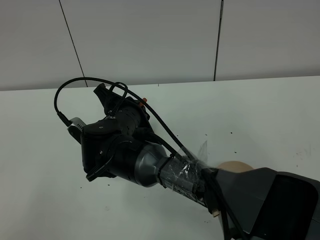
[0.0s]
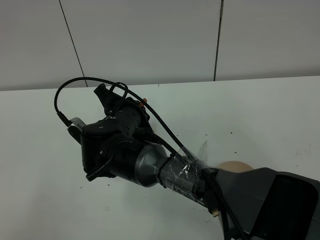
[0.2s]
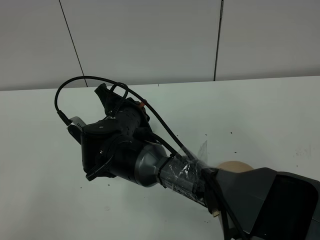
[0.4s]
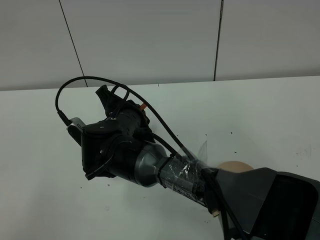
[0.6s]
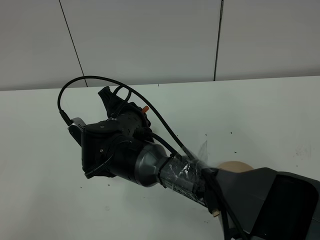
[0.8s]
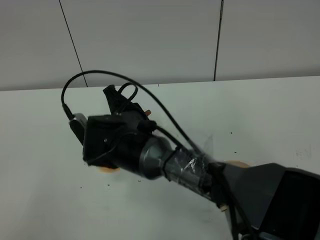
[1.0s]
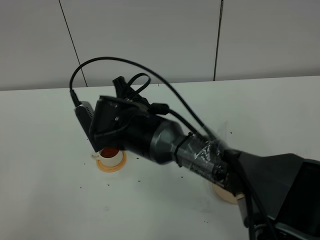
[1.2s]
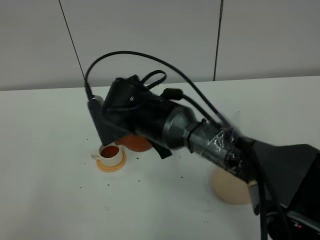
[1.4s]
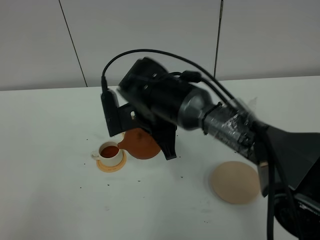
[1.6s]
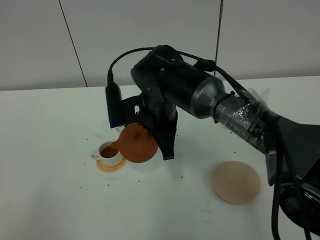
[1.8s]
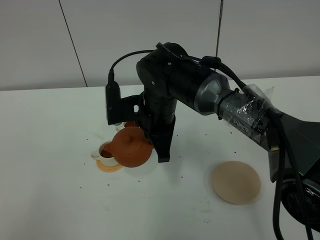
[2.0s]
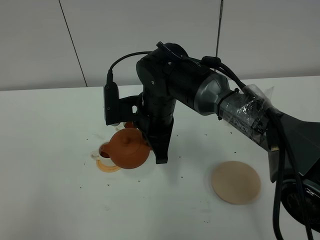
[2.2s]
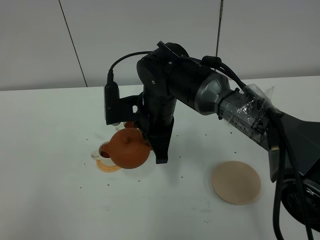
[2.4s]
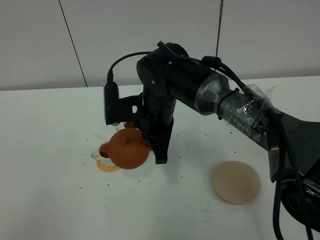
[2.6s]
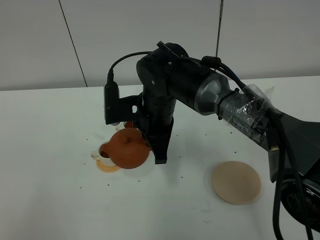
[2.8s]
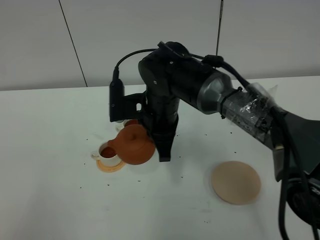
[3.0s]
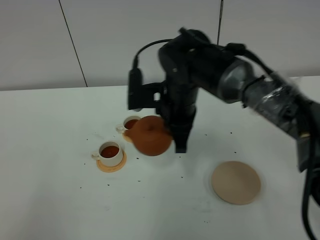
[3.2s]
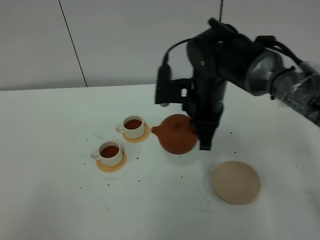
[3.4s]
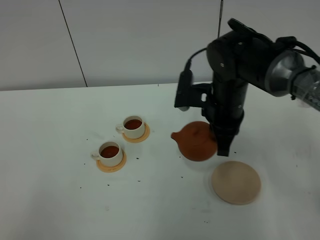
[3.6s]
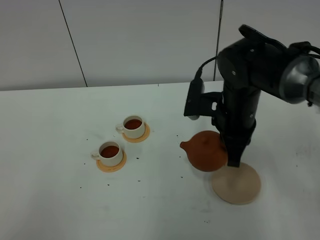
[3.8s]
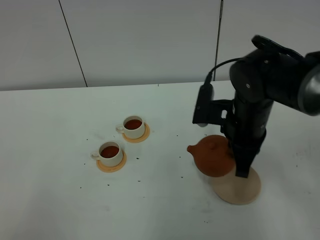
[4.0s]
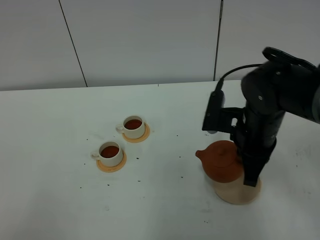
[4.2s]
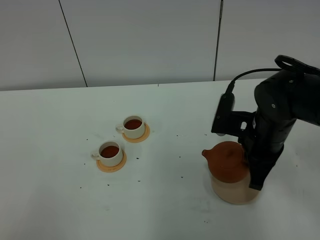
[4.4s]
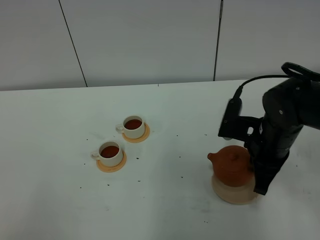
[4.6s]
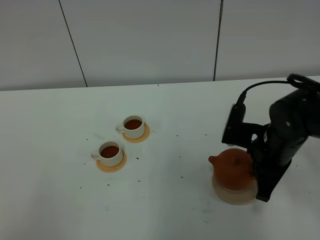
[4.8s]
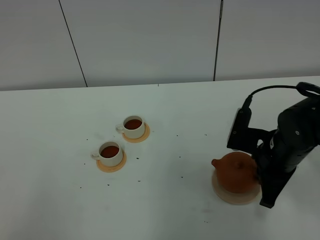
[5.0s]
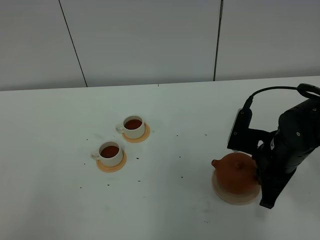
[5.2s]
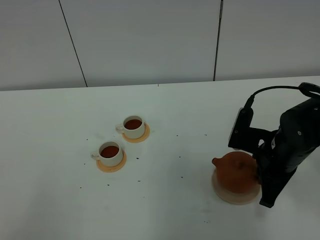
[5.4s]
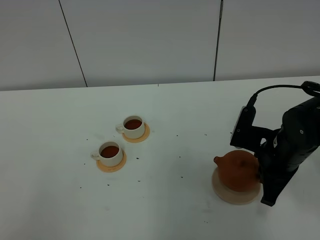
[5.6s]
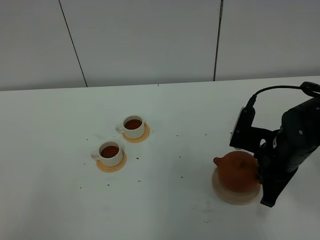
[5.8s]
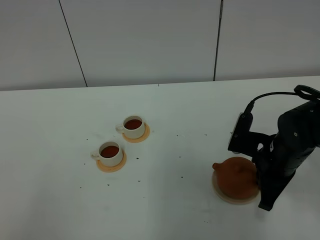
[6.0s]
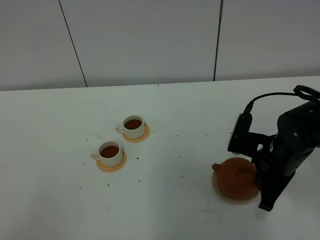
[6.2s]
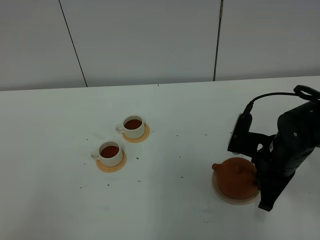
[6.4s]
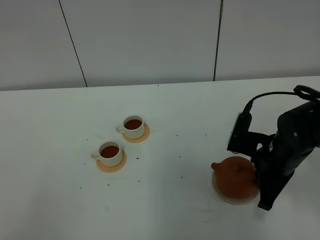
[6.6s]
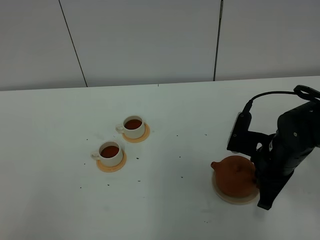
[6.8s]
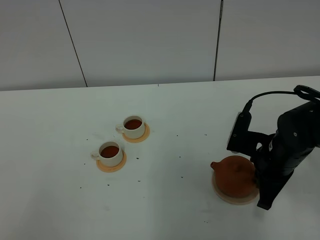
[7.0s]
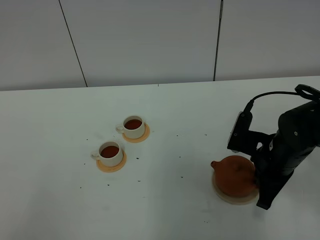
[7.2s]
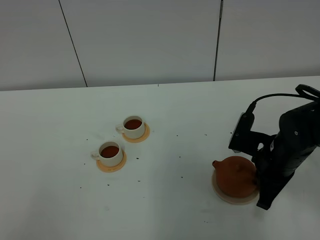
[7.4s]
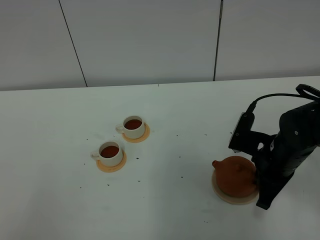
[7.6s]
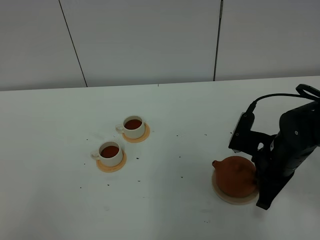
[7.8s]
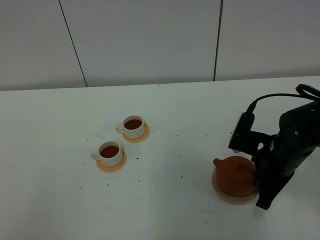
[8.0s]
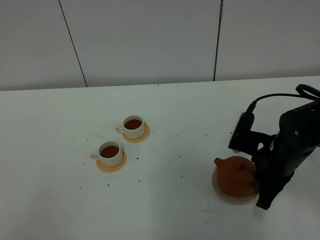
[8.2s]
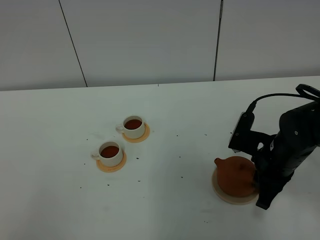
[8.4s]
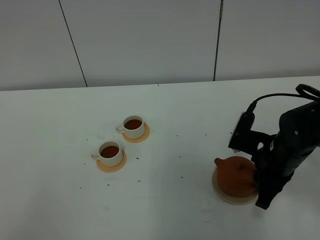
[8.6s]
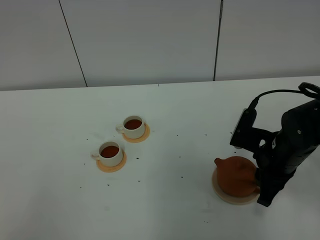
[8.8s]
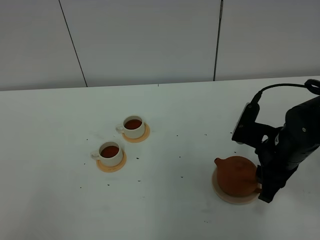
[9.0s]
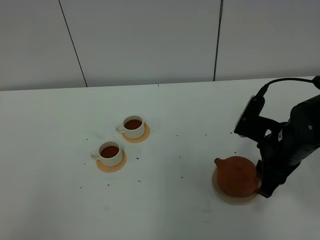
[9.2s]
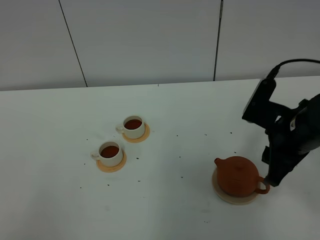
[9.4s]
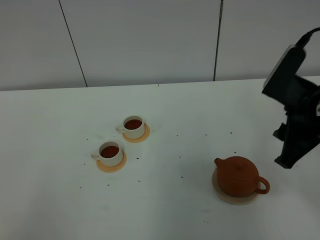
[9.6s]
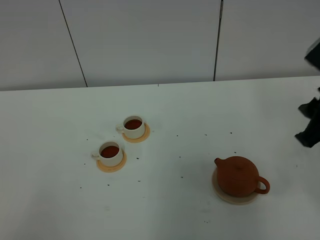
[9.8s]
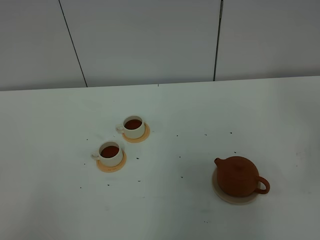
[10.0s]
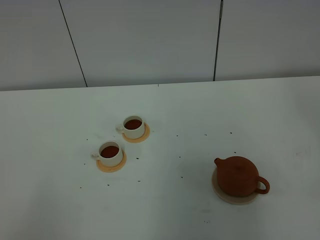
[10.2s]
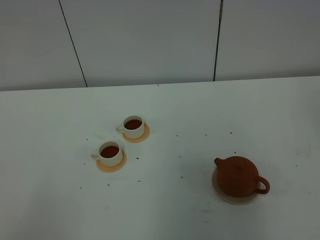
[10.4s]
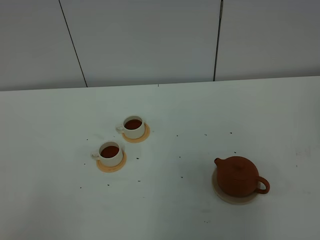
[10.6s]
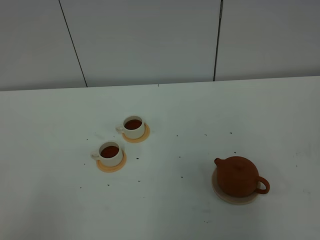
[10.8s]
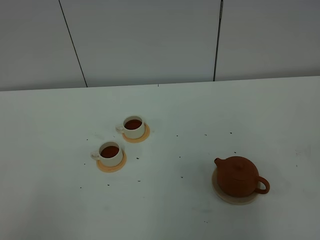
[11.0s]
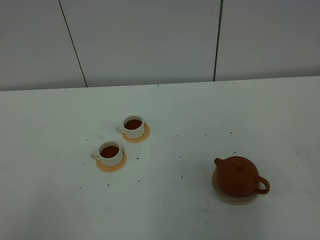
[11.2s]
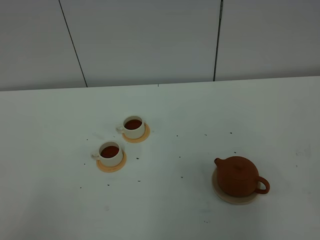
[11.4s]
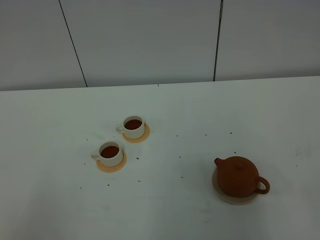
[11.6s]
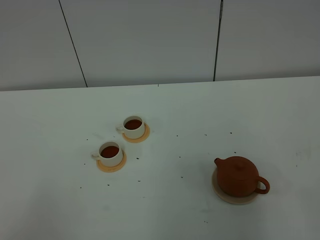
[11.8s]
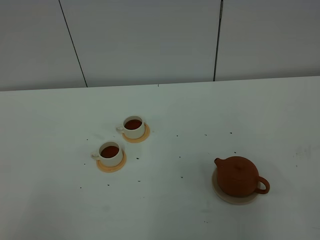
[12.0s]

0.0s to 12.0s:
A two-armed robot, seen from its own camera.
Task of the whole recording: grasp the brown teapot and pour the tea into the two white teacups one by one, put the brown teapot back in its original place.
Step, 0.0s to 2.6s: Pour tea into the teacup with the right gripper.
0.0s to 1.6s: The right gripper shifts approximately 5 cm to the right.
1.6s to 3.0s: The grippers move only a little.
3.0s to 4.4s: The right gripper shifts some 15 cm to the right.
4.4s to 6.0s: The right gripper changes place by some 5 cm.
6.0s to 7.6s: Neither gripper changes place.
7.6s to 9.0s: The right gripper opens.
9.0s to 10.4s: The right gripper travels upward, backward and to the right by some 30 cm.

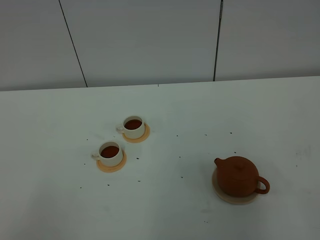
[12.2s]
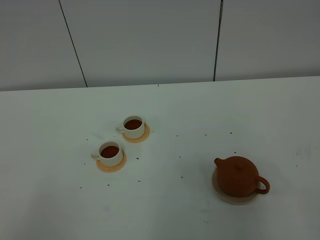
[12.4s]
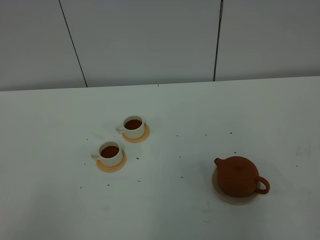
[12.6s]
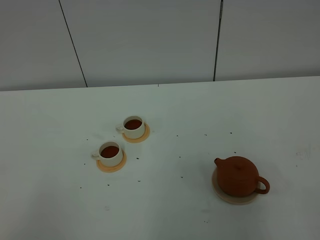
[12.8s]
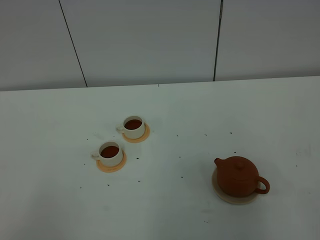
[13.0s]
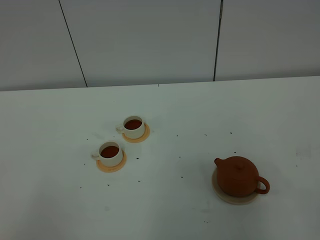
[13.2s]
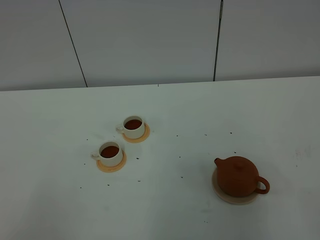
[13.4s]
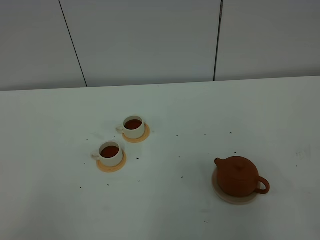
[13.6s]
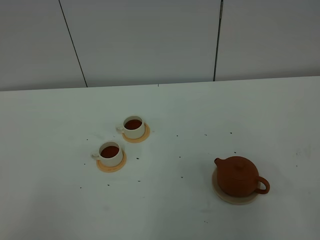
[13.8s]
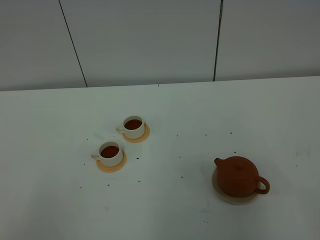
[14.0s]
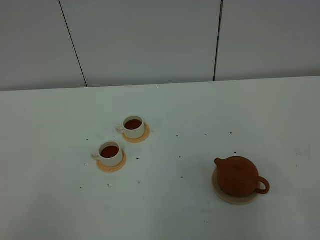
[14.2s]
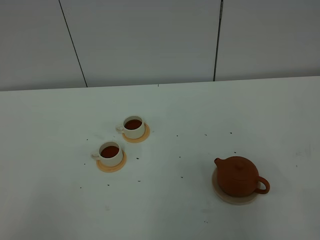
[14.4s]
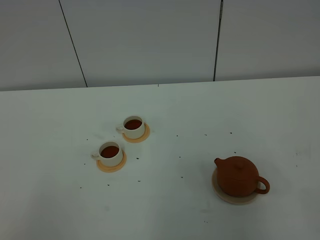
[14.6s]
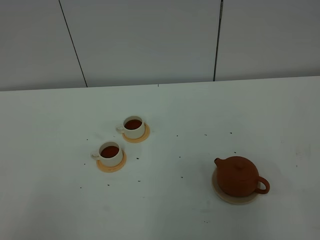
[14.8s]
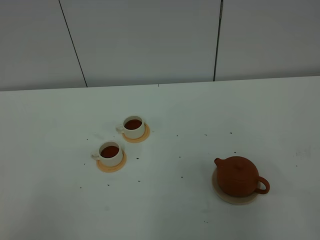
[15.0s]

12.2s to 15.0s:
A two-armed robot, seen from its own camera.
Task of the whole recording: grasp the brown teapot and pour the tea into the two white teacups one by one, put the brown teapot back in its original place.
12.2s to 15.0s: Both grippers stay put.

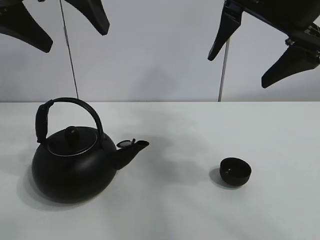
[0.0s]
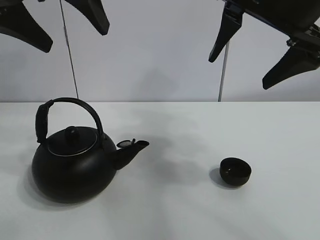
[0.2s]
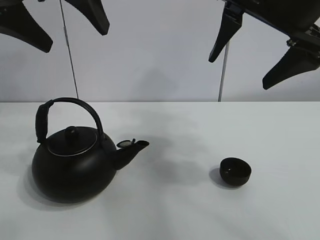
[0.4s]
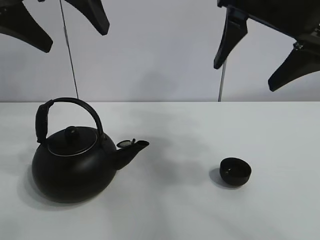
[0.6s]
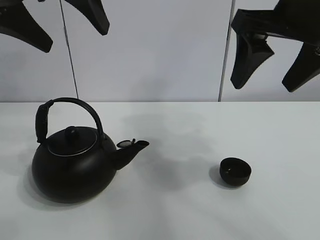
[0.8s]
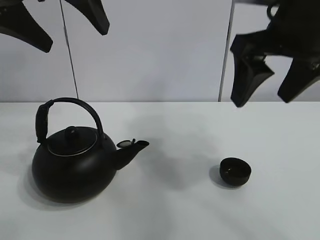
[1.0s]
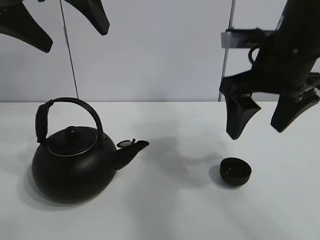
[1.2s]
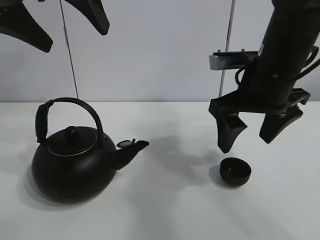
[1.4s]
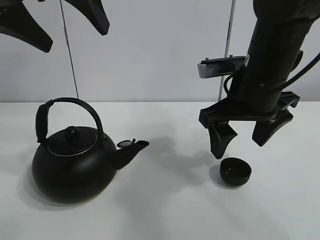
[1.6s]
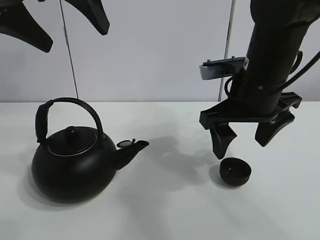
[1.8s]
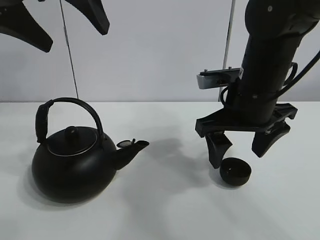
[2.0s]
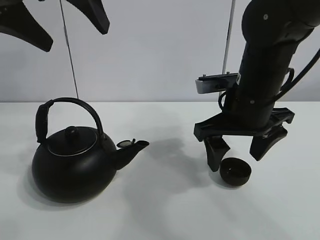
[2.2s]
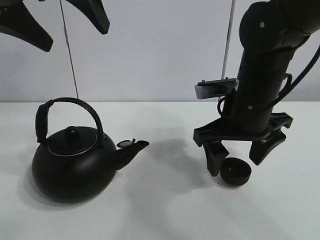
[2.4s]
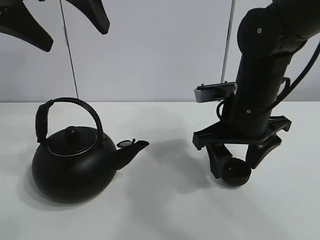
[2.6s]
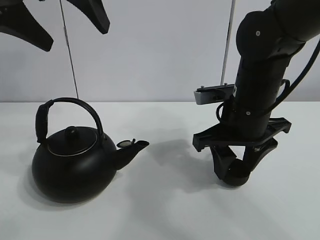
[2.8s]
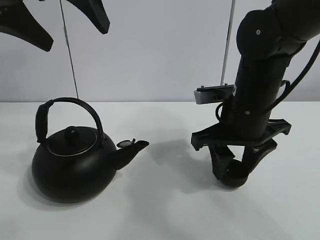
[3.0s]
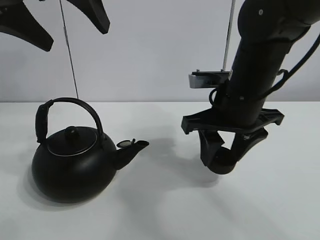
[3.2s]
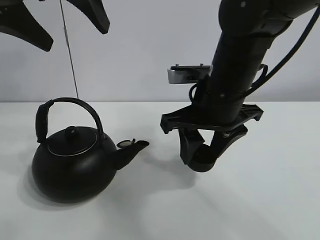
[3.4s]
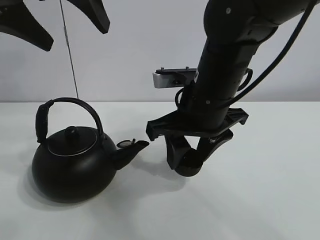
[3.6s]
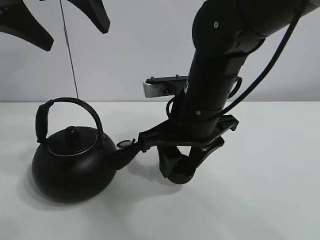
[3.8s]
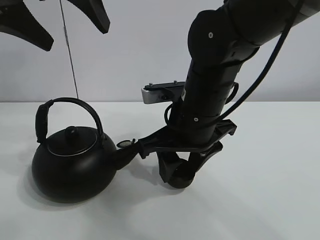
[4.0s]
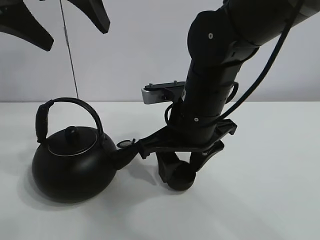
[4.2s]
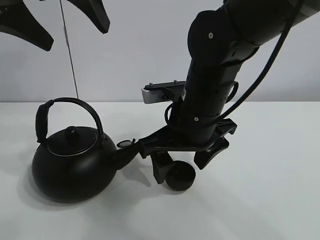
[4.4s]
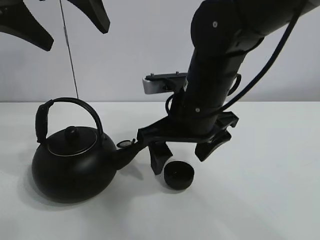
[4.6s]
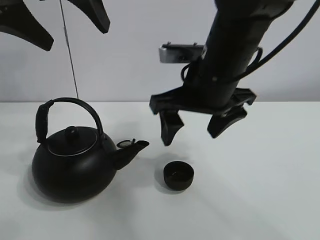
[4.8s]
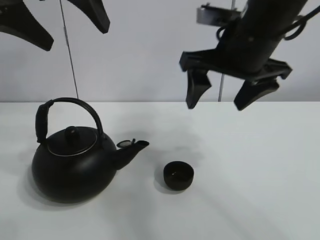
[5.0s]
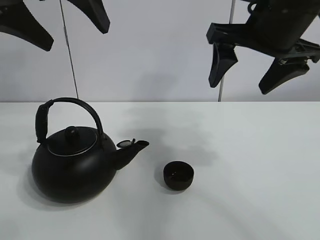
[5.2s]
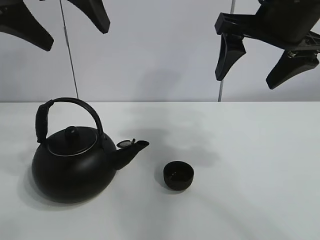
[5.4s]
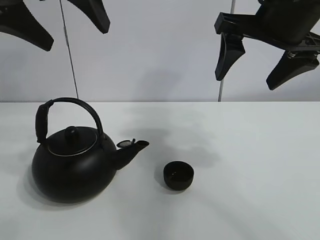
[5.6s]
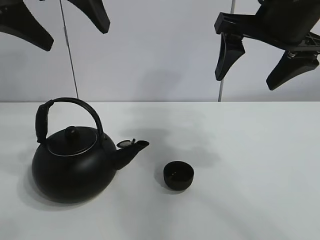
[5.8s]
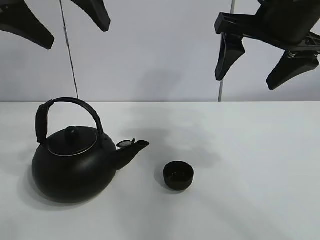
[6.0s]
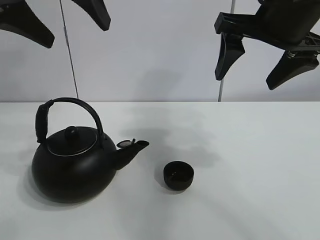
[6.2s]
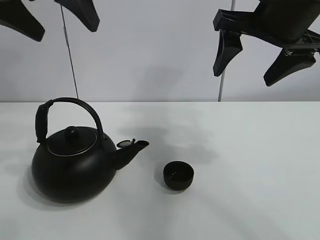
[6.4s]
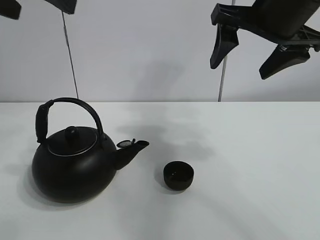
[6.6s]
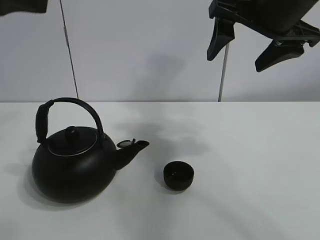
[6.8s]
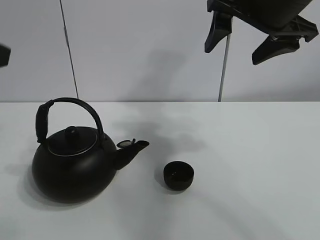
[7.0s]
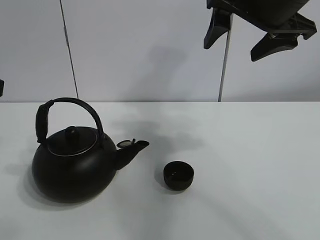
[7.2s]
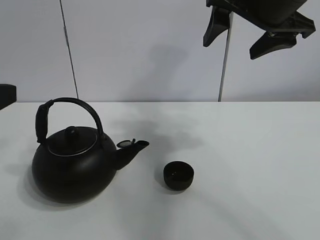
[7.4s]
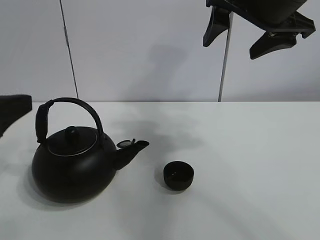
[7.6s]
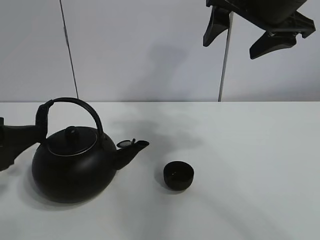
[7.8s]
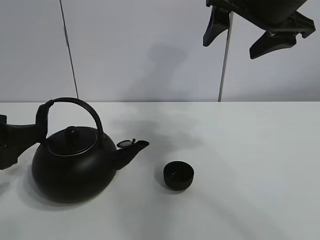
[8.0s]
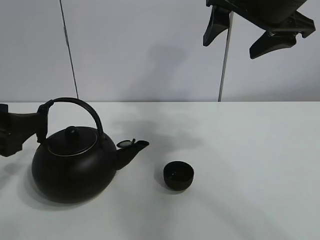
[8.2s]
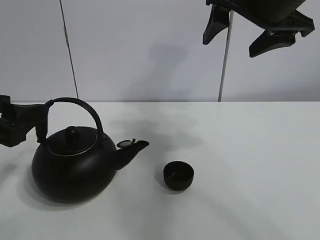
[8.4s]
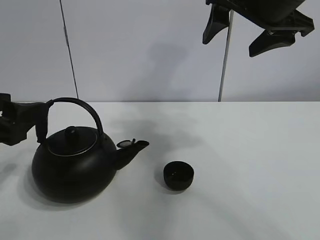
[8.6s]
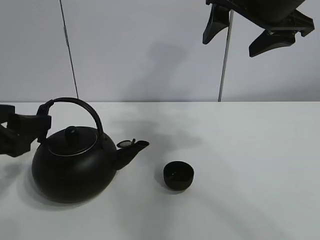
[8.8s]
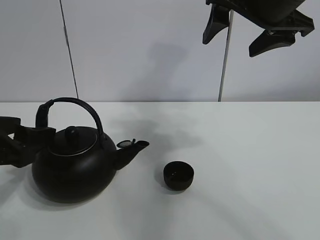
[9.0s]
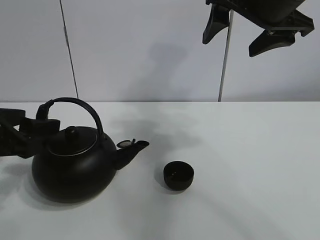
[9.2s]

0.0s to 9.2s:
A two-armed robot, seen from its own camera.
Task of the whole recording: pour tea into the teacup.
Step, 0.0s to 2.6s: Pick up the teacup with the right gripper.
Step, 2.8s to 4.4s: Place the teacup in the center of view with the right gripper.
1.6s to 3.0s: The right gripper closes its fingers.
3.0s to 4.6s: The right gripper heads to the left, covering approximately 10 cm, and opens.
4.6s to 6.2s: The right gripper goes approximately 15 cm upward and to the right.
6.2s to 7.6s: The left gripper shifts approximately 20 cm downward, backward and to the left.
7.6s to 9.2s: The left gripper moves approximately 5 cm.
